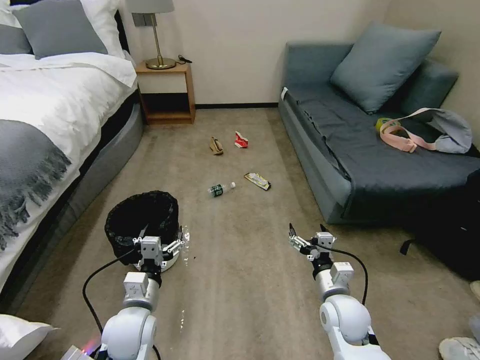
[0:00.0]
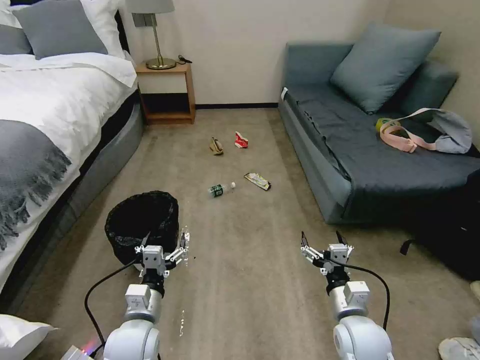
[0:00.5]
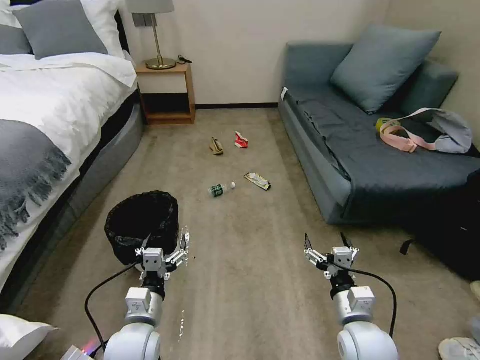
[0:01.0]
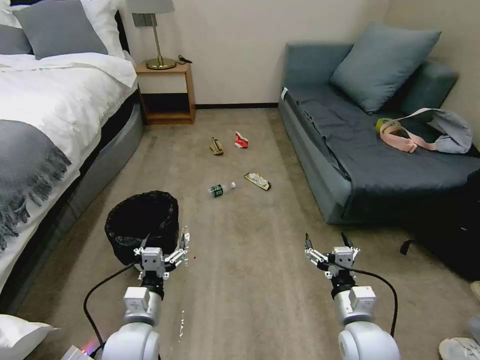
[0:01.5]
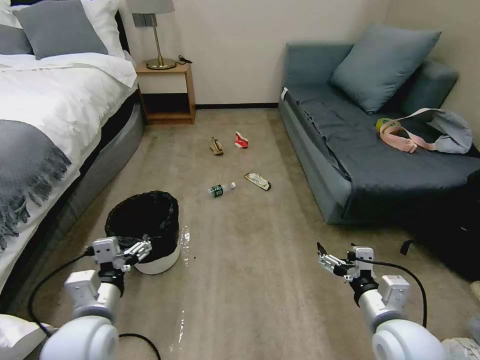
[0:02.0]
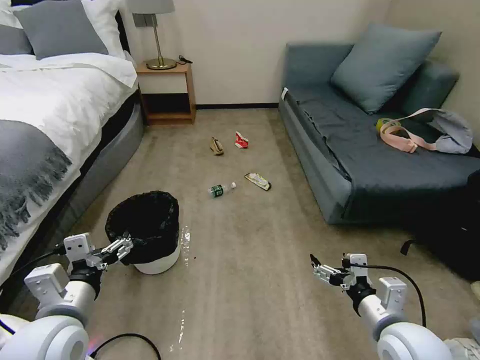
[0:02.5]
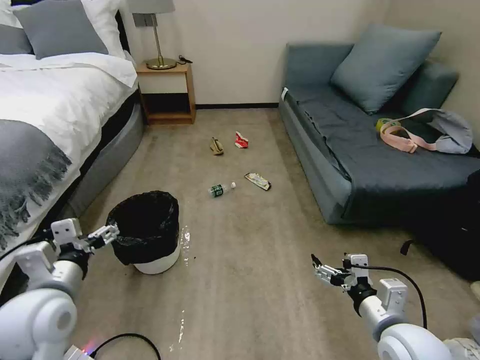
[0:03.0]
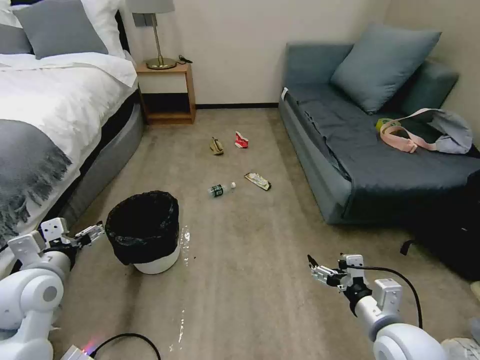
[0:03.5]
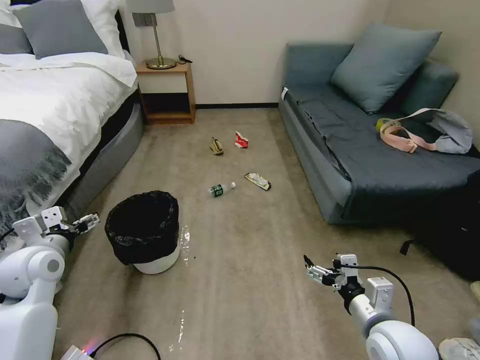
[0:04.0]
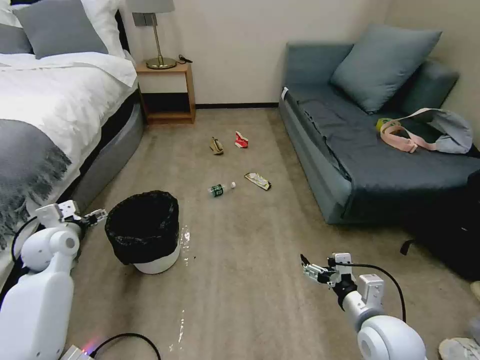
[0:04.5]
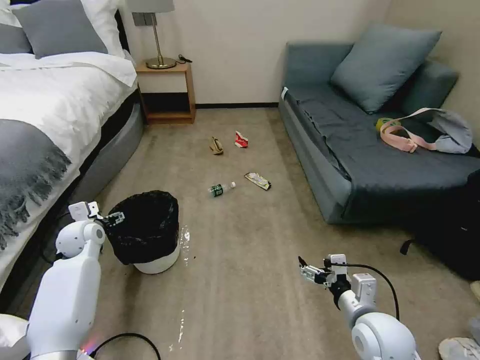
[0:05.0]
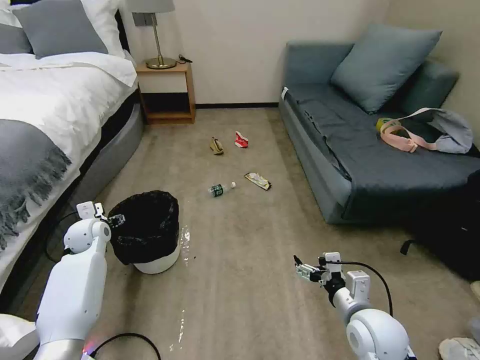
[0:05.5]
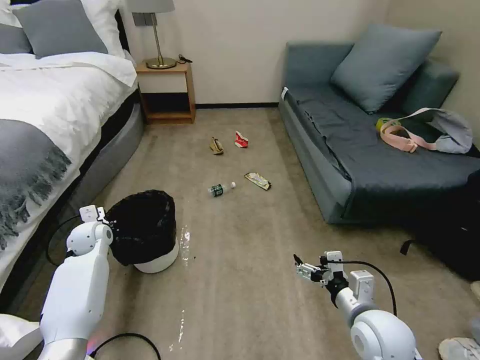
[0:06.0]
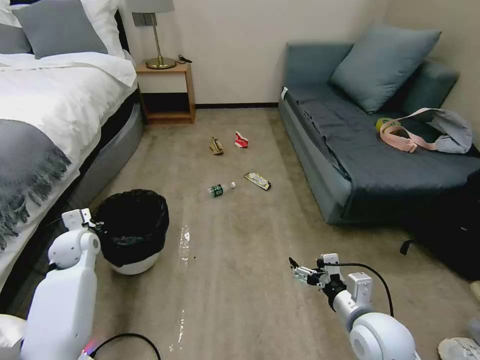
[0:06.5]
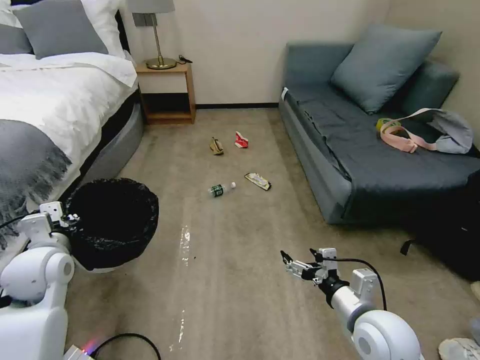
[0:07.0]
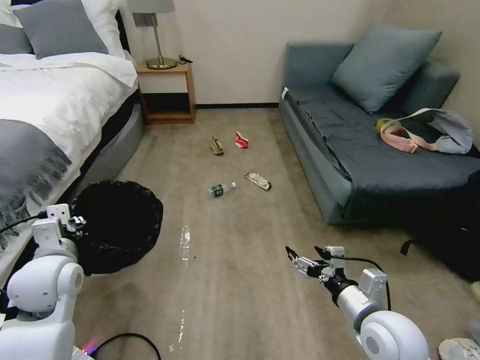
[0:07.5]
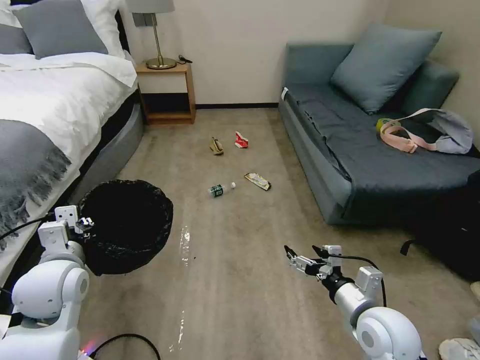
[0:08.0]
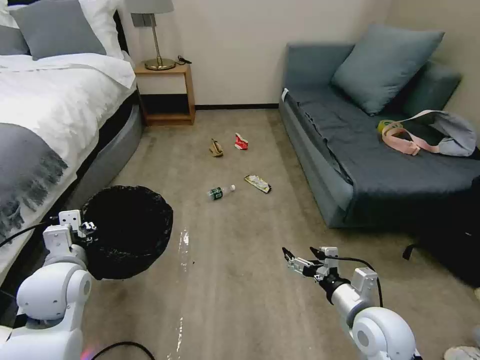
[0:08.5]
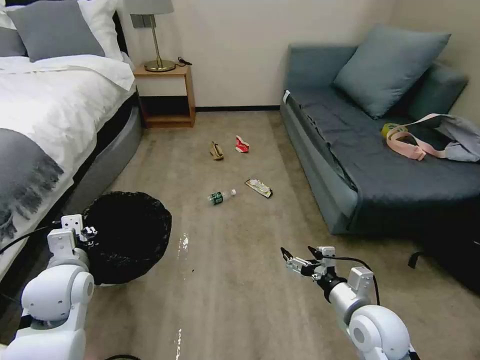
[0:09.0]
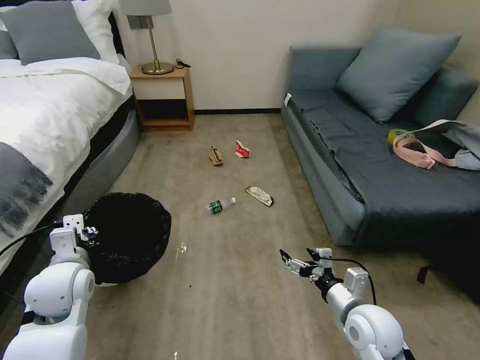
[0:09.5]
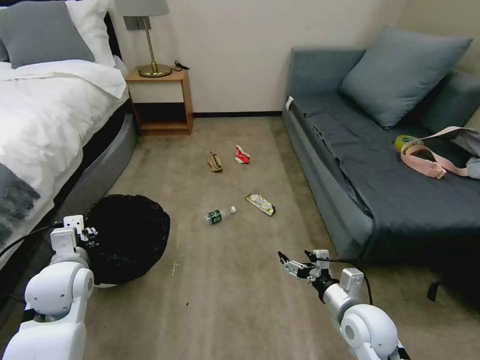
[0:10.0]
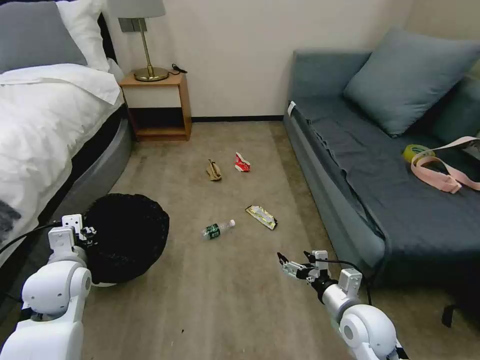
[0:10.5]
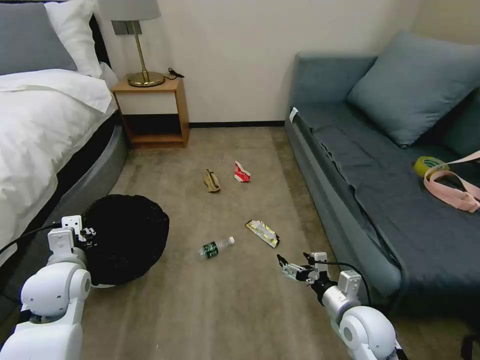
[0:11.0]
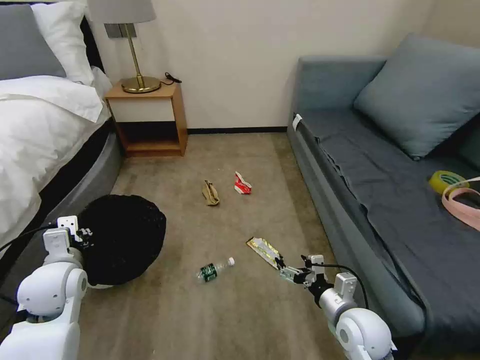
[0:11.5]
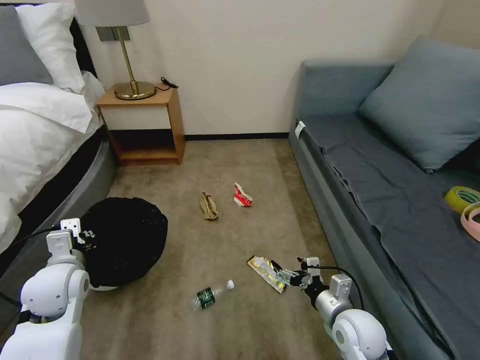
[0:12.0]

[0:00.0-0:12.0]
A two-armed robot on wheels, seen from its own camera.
Task of the whole recording: Pick up the trash bin, then pick up the garbage on the floor and place it into the trash bin.
2.0 to 4.0 s: The left gripper heads to the left and forward, covering about 20 cm.
4.0 to 6.0 s: The left gripper moves forward and downward, some 15 cm, and closes.
6.0 to 8.0 s: The left gripper is displaced backward and upward by about 20 cm.
8.0 to 10.0 s: The right gripper shifts approximately 5 cm downward.

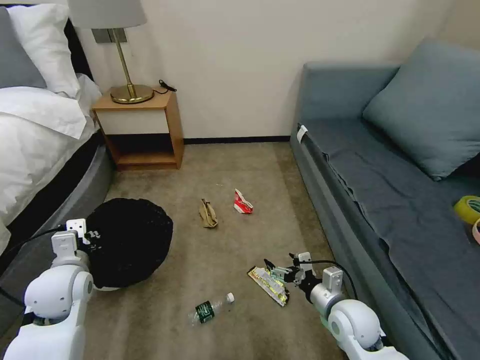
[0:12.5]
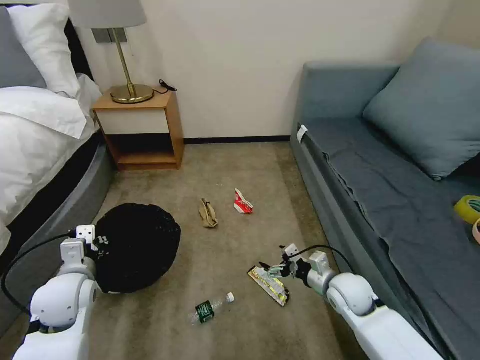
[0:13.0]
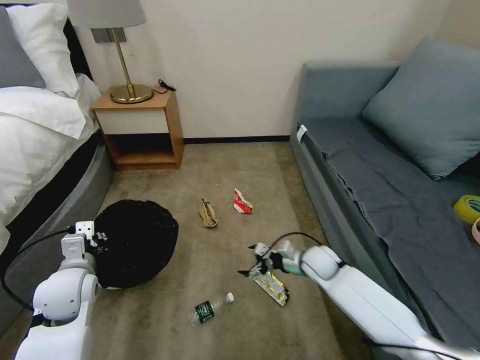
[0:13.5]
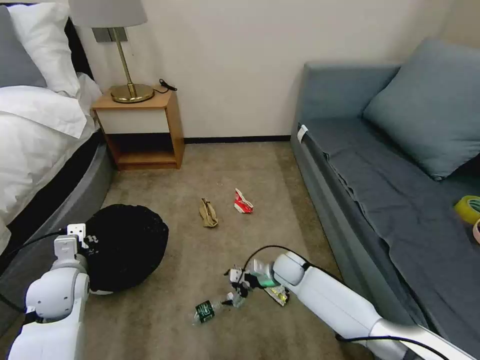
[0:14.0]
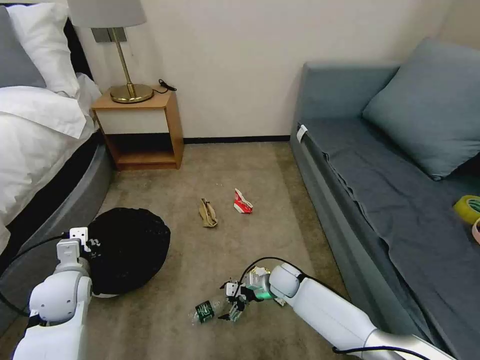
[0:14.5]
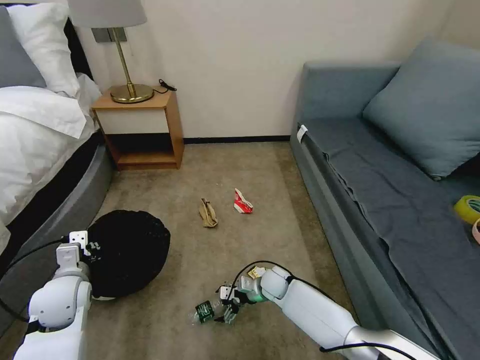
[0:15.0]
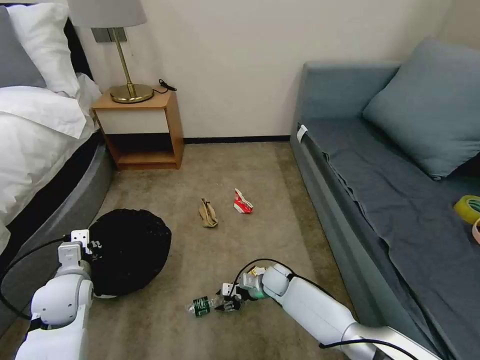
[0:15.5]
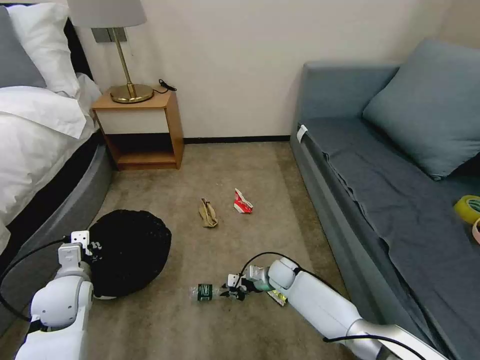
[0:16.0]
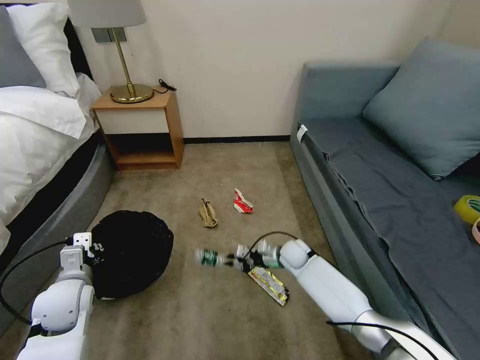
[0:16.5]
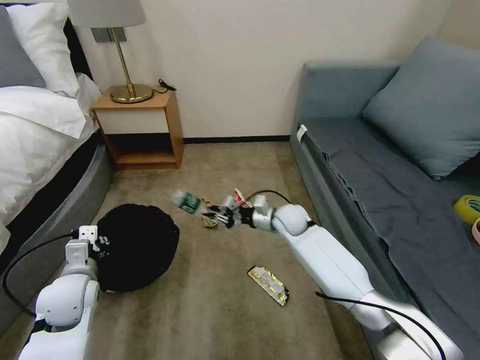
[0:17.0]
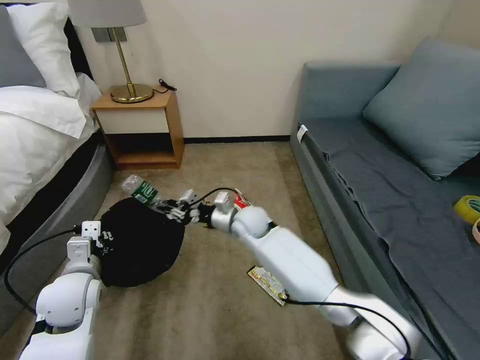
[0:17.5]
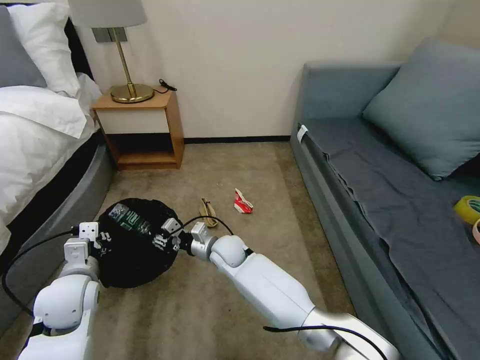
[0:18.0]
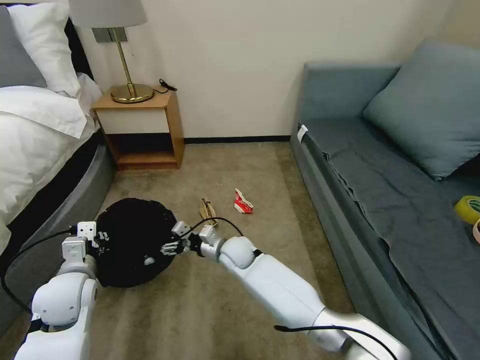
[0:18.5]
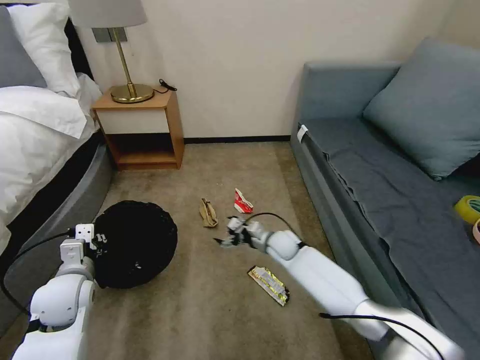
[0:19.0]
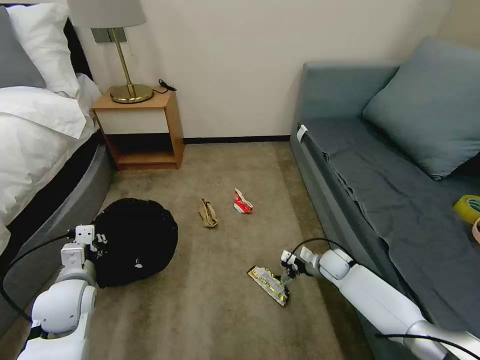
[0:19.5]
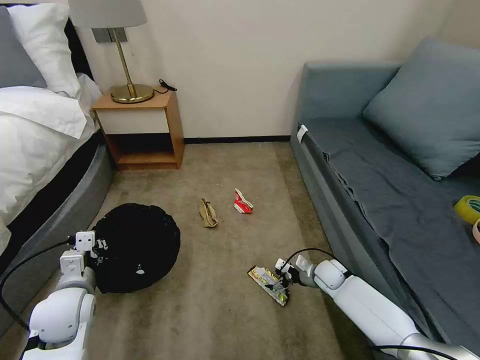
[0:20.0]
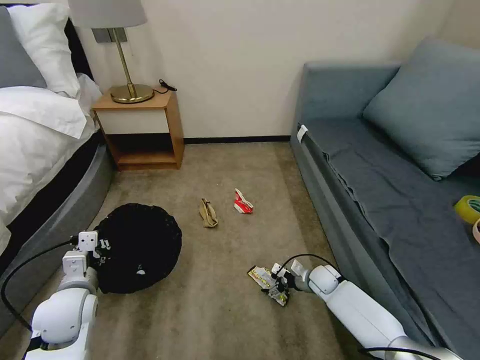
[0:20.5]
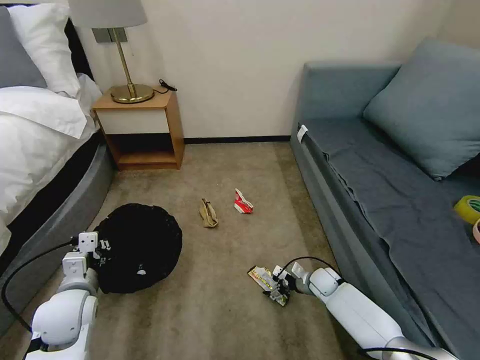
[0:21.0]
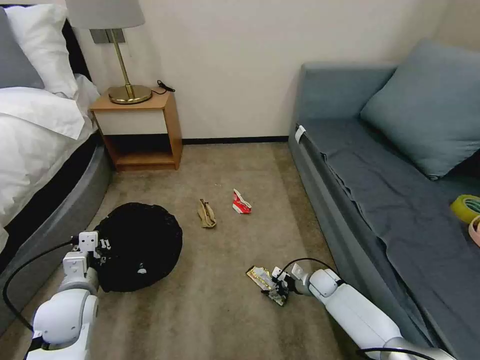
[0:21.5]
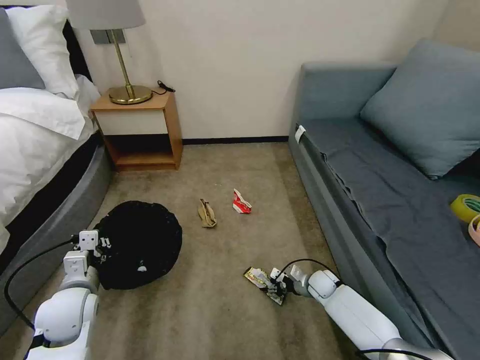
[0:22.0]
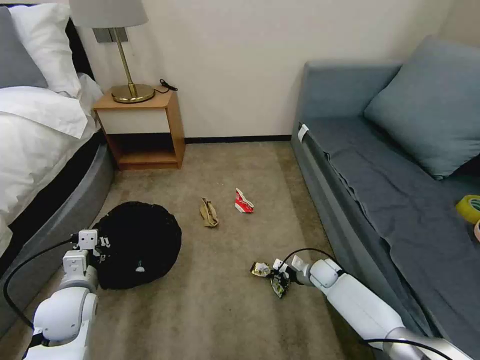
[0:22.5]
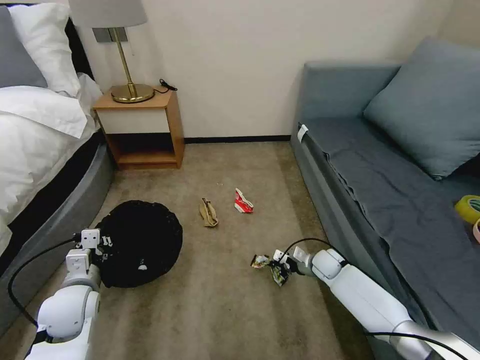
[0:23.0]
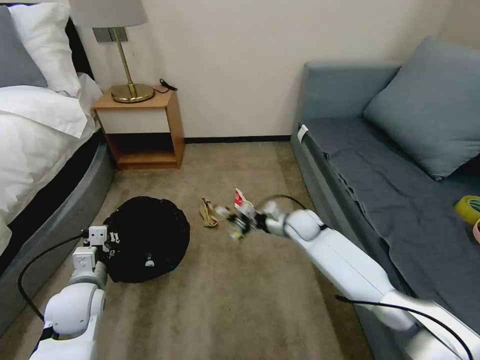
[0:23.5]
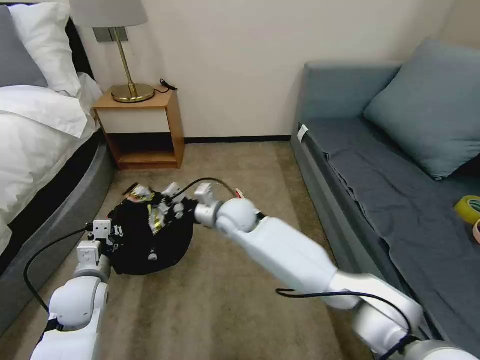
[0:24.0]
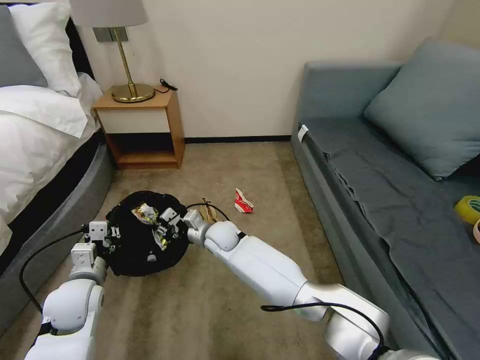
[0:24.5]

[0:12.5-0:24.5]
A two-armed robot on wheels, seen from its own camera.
Task of the whole recording: Pick up the trash bin, then pick up the garbage on the floor and place it into the trash bin.
12.5 to 14.5 s: The right gripper moves forward, downward and to the left, some 20 cm.
14.5 to 16.5 s: The right gripper is displaced forward by roughly 5 cm, and closes.
16.5 to 18.5 s: The right gripper travels to the left and upward by some 20 cm, and opens.
18.5 to 20.5 s: The right gripper is displaced to the right and downward by some 30 cm.
20.5 to 22.5 s: The right gripper closes up.
22.5 to 24.5 s: The right gripper travels to the left and upward by some 35 cm.

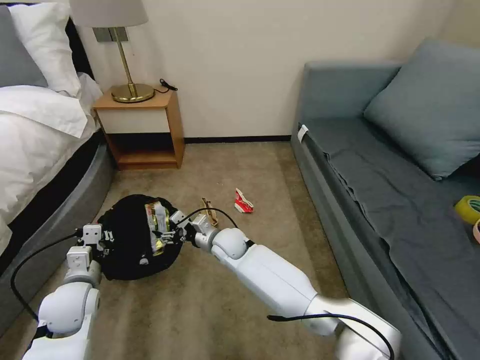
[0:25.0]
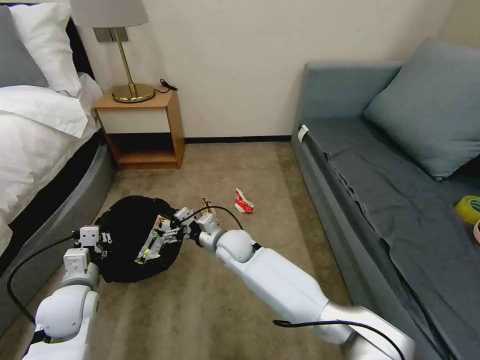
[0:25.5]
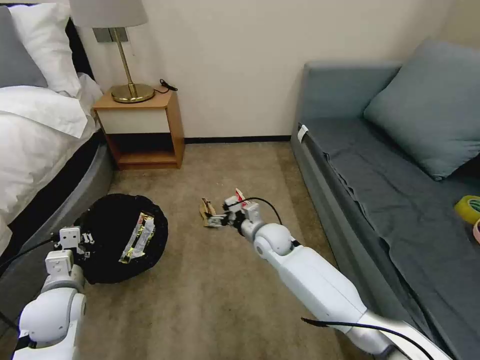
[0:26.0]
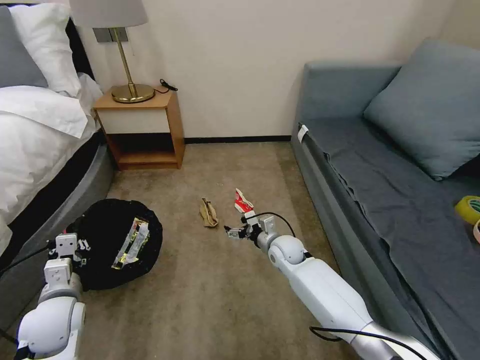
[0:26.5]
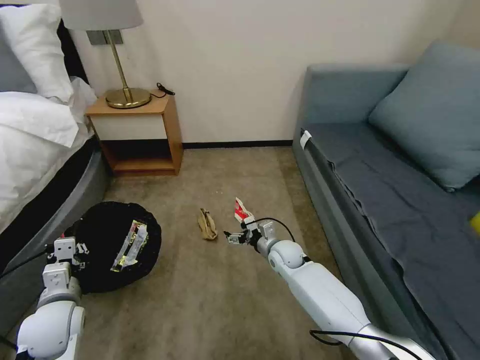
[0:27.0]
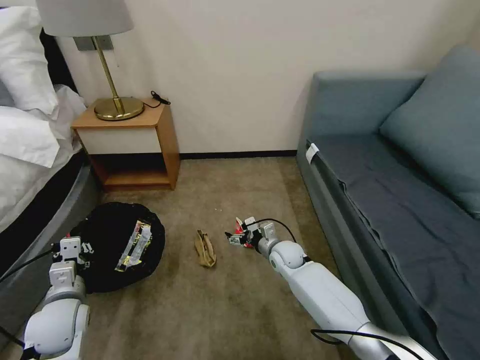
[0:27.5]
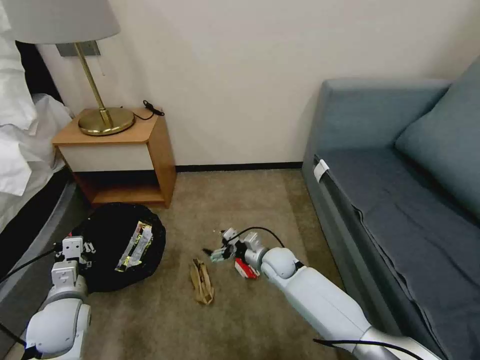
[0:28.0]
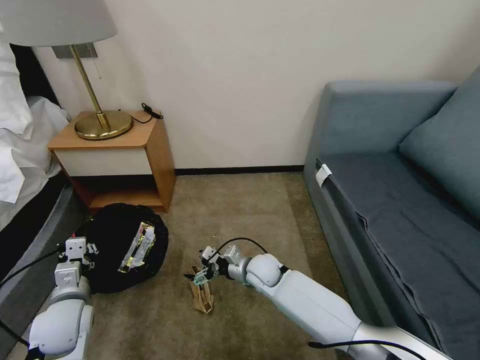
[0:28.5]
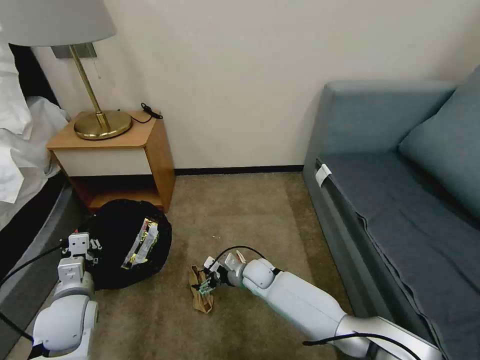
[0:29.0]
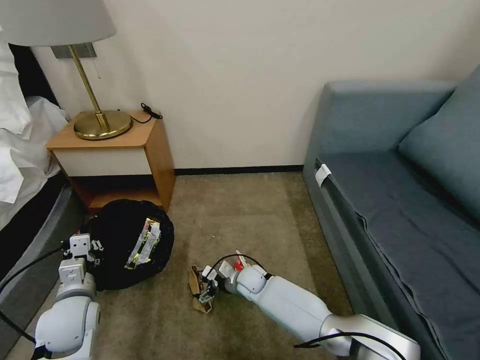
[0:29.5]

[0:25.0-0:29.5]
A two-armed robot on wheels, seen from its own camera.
Task of the whole recording: Pick up the trash bin, then pick up the garbage on the floor and place it into the trash bin.
25.0 to 27.0 s: The right gripper travels to the right by some 15 cm.
27.0 to 29.5 s: The right gripper heads to the left and downward, covering some 10 cm.
